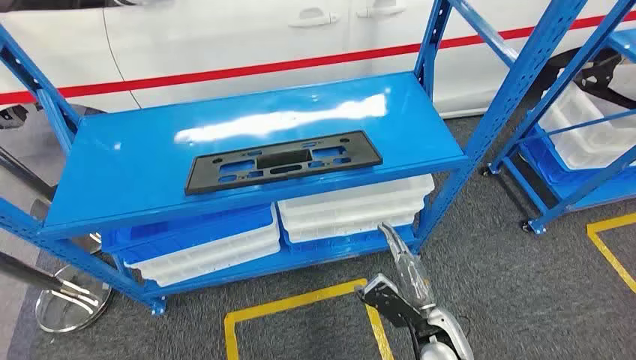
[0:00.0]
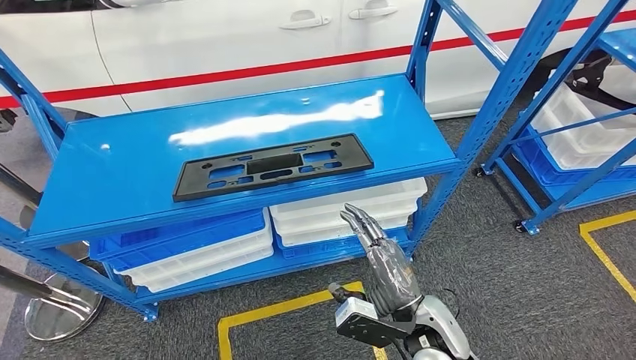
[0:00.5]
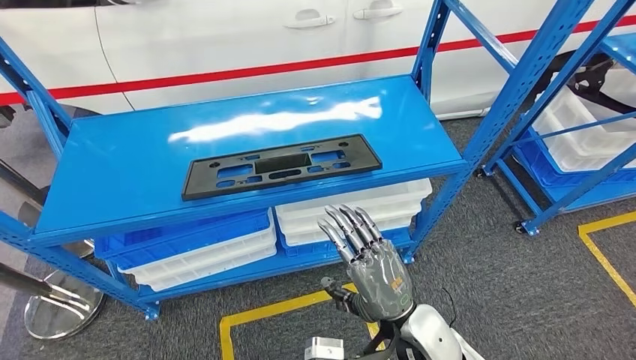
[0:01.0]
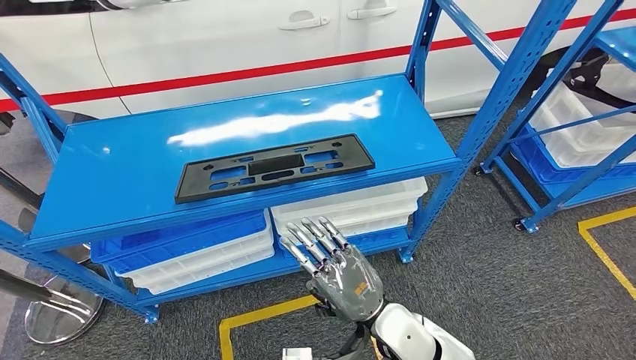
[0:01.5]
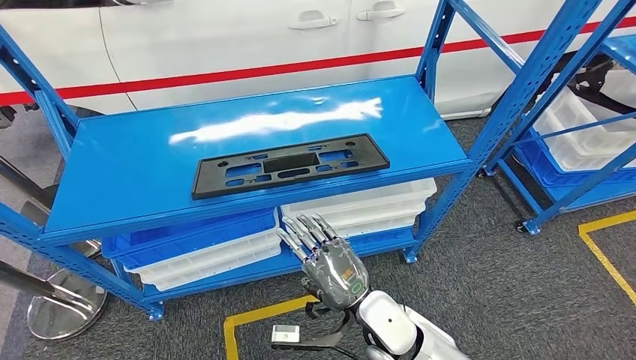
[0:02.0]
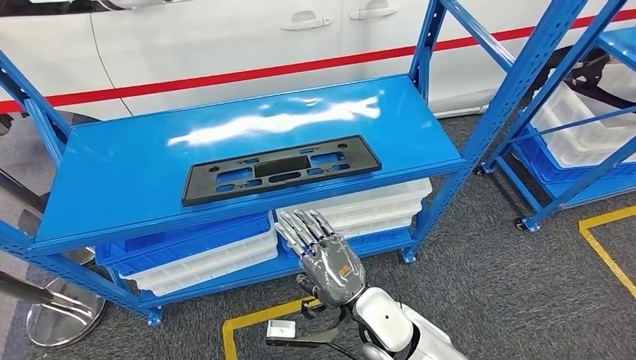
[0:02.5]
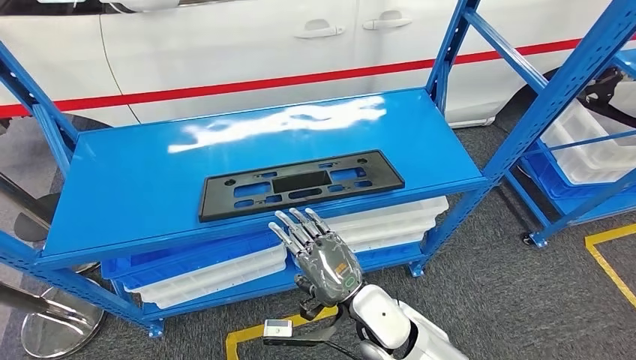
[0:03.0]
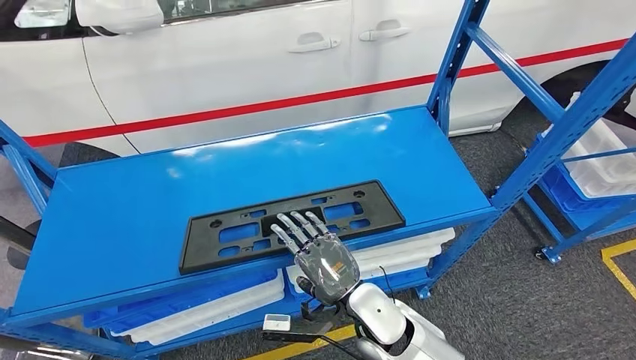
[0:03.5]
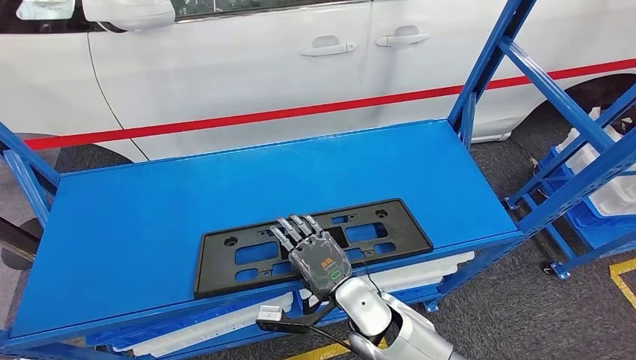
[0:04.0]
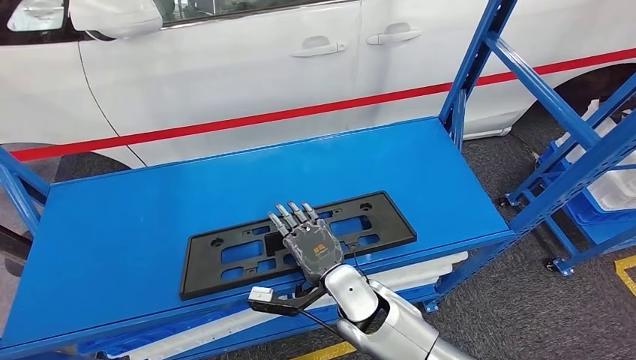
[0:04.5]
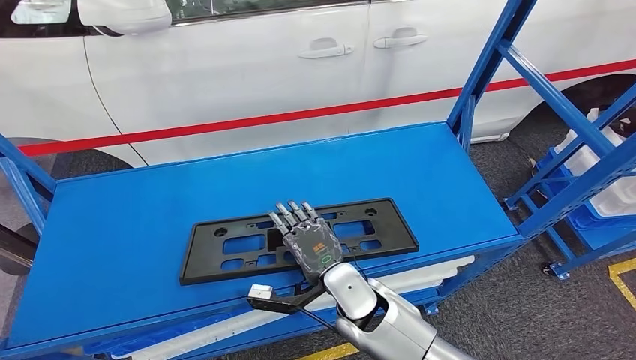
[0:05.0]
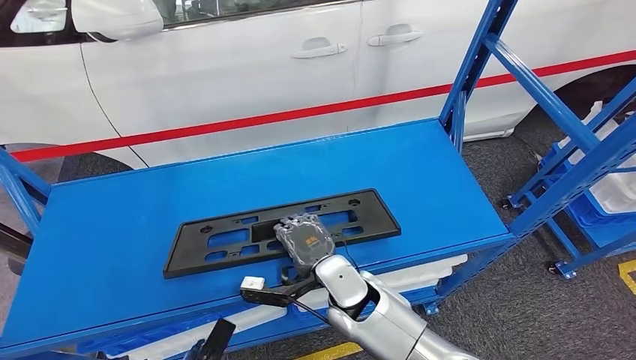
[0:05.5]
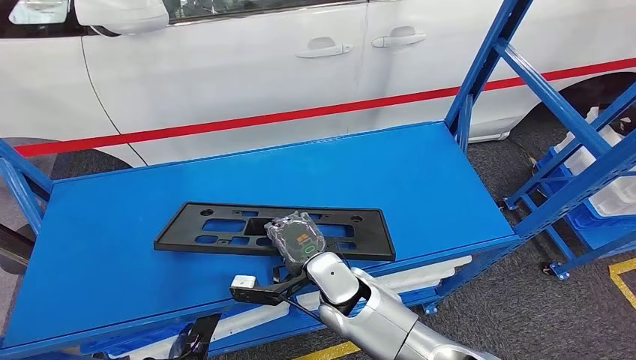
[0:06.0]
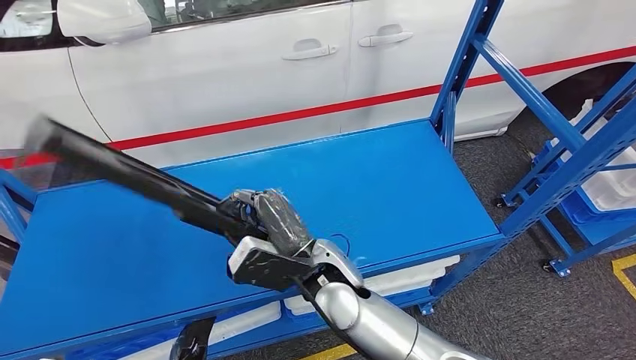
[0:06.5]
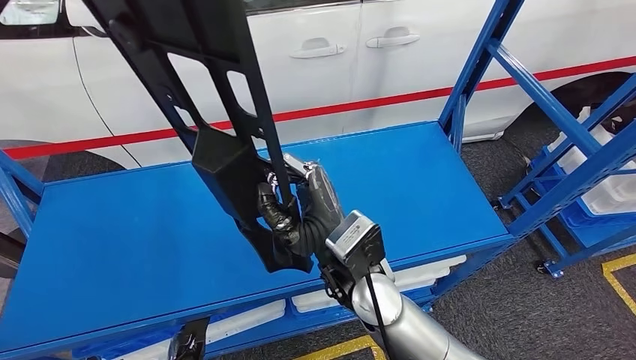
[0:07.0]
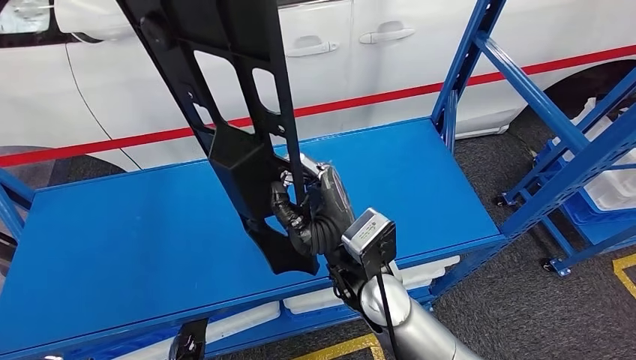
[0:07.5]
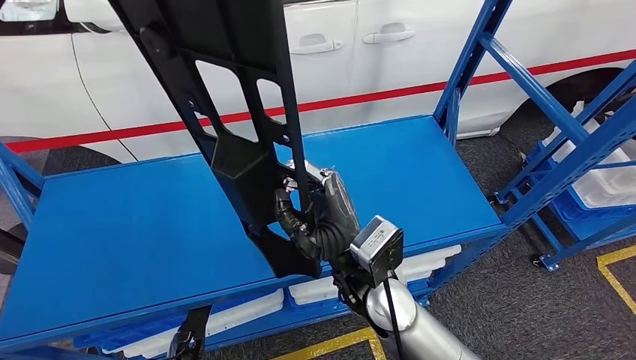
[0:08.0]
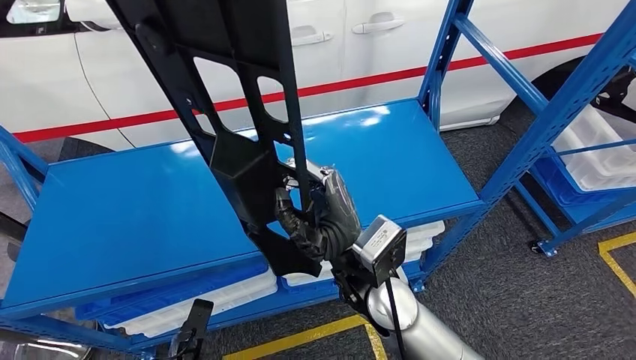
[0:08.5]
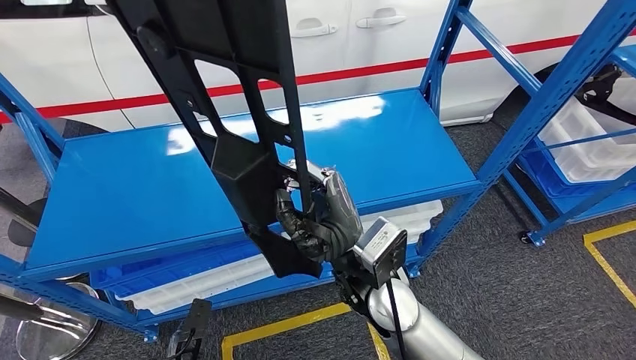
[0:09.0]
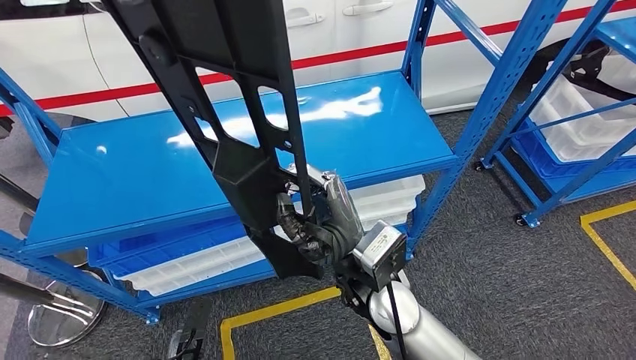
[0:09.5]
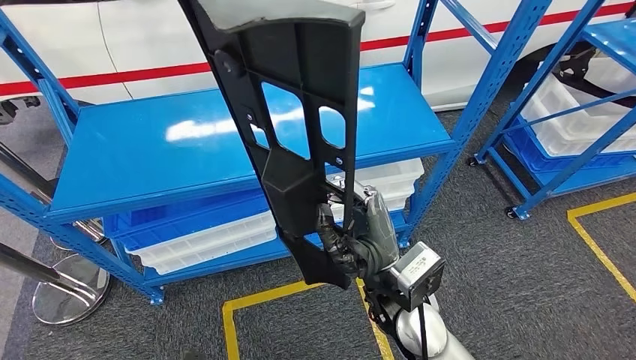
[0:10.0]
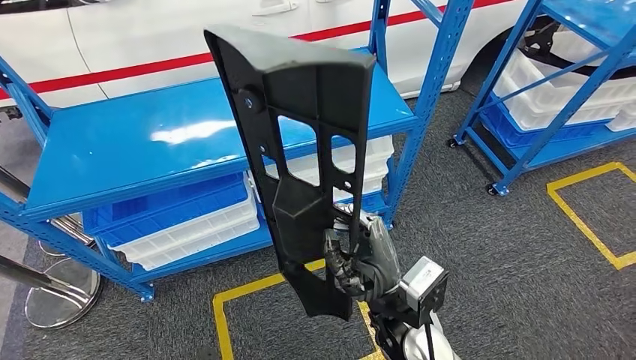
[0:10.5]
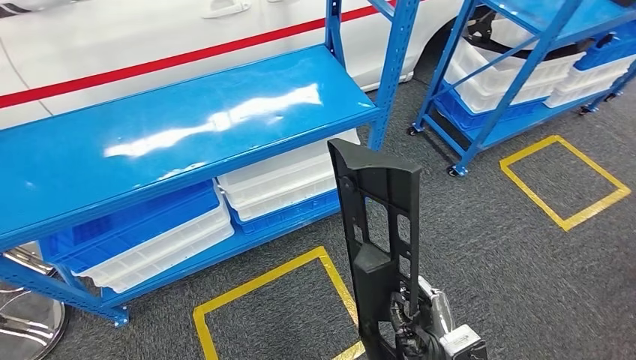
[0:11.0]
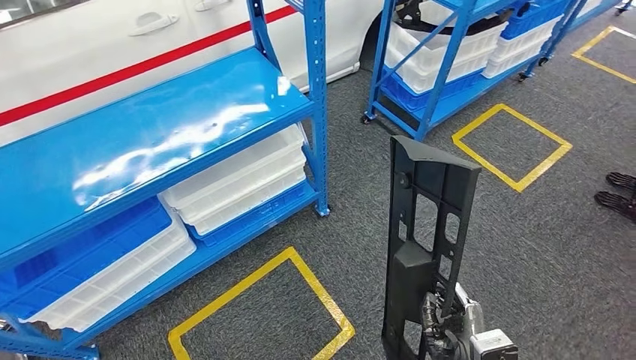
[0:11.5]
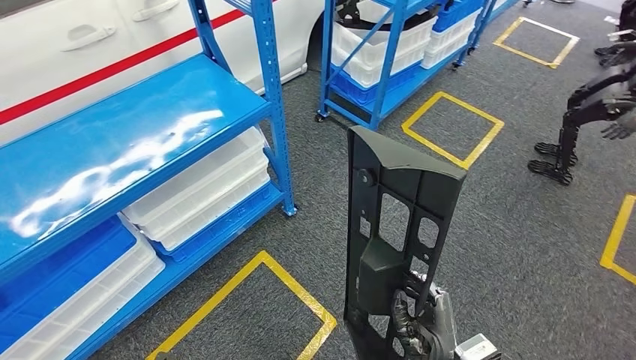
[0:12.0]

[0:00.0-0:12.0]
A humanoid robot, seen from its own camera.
Step, 0:00.0 to 0:07.0: Pick up the large material from the shelf.

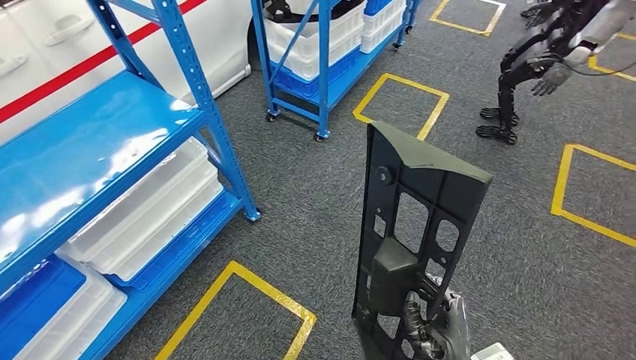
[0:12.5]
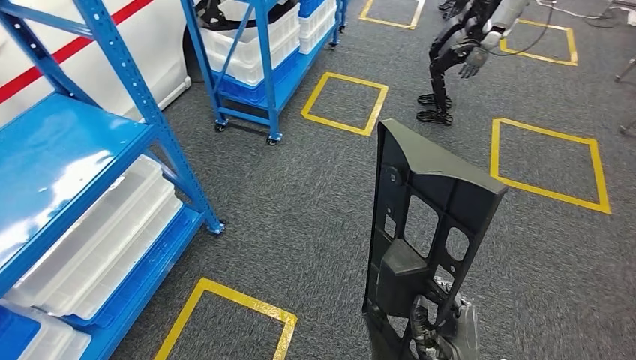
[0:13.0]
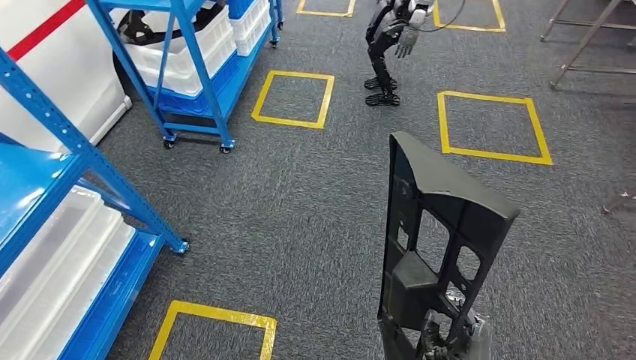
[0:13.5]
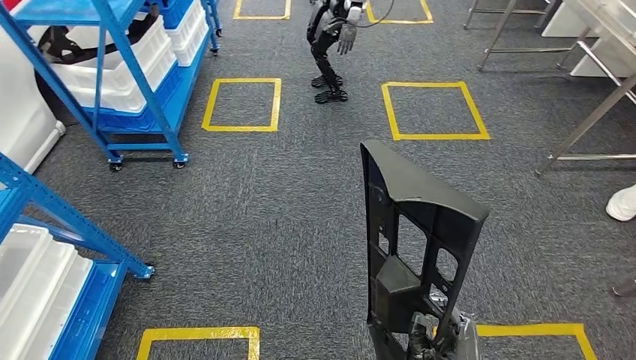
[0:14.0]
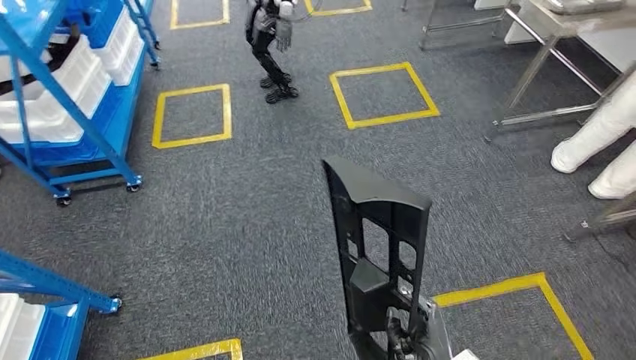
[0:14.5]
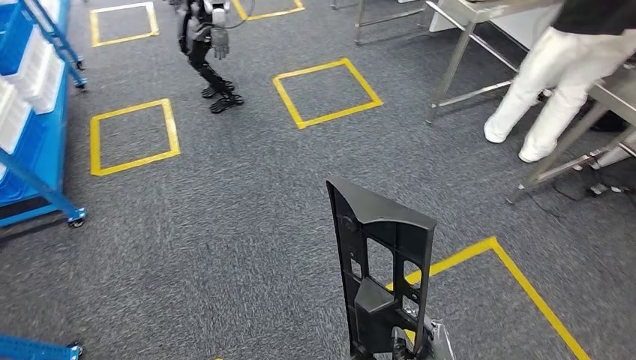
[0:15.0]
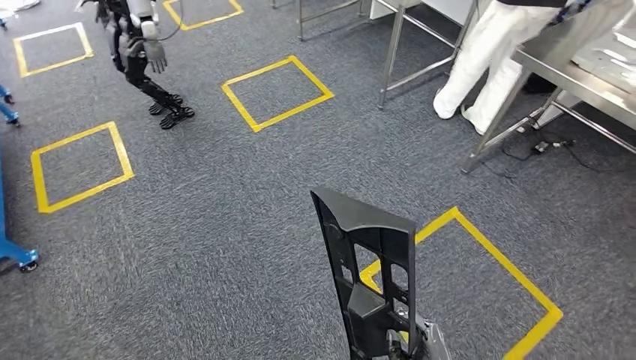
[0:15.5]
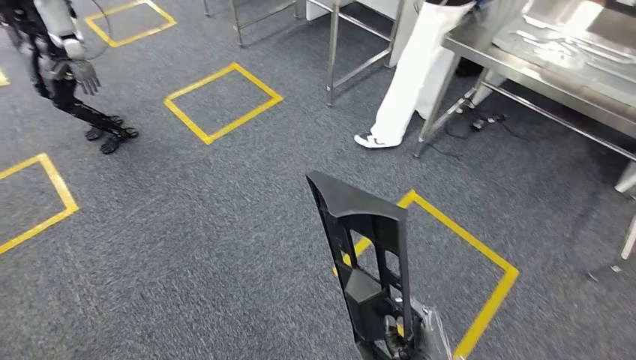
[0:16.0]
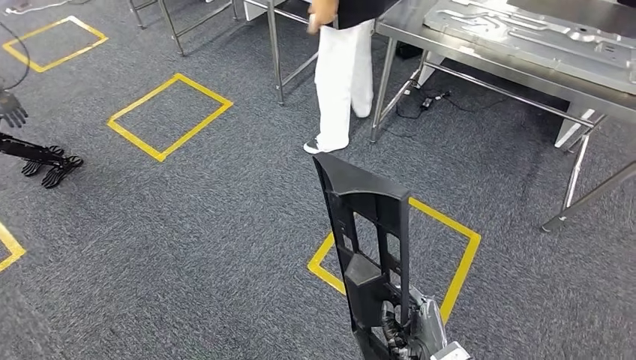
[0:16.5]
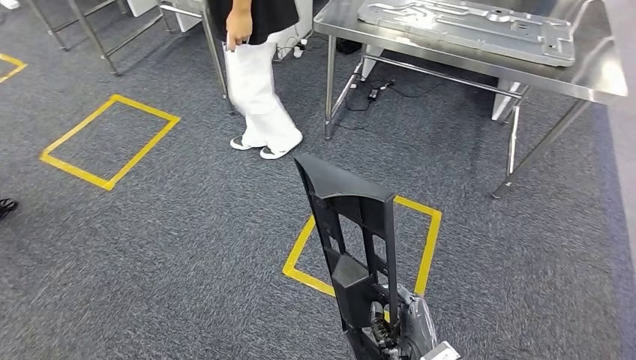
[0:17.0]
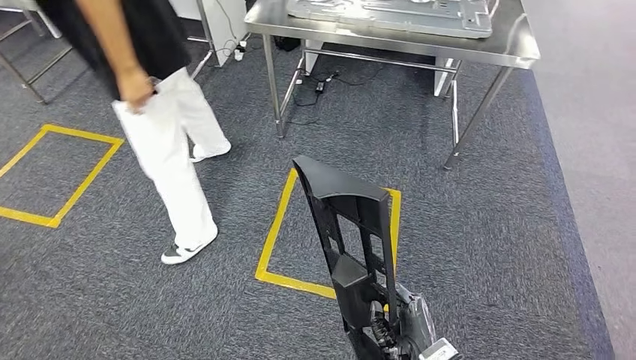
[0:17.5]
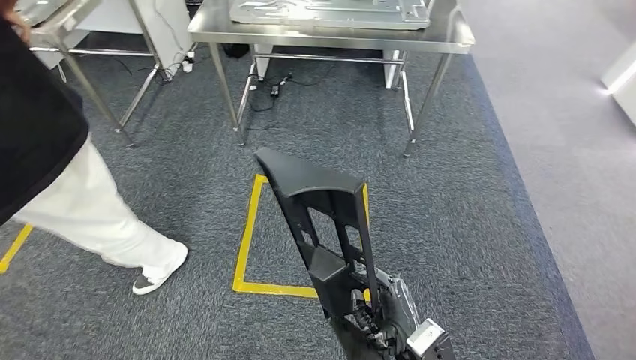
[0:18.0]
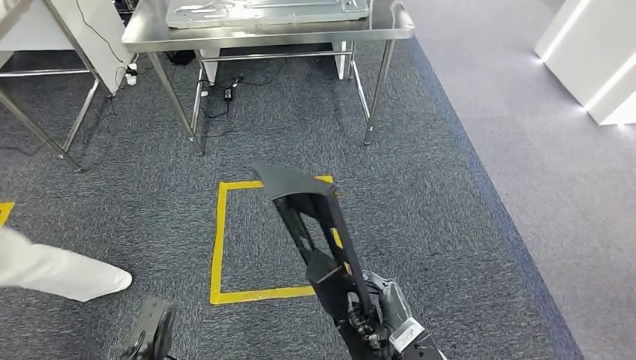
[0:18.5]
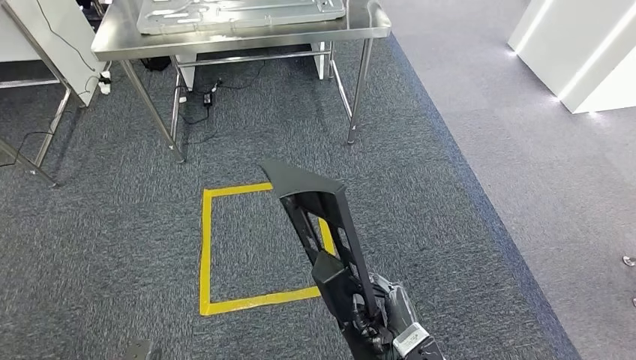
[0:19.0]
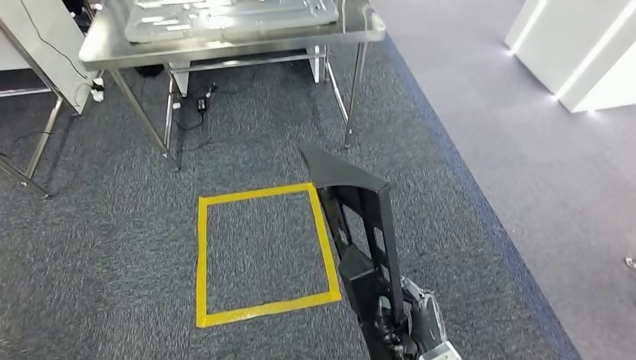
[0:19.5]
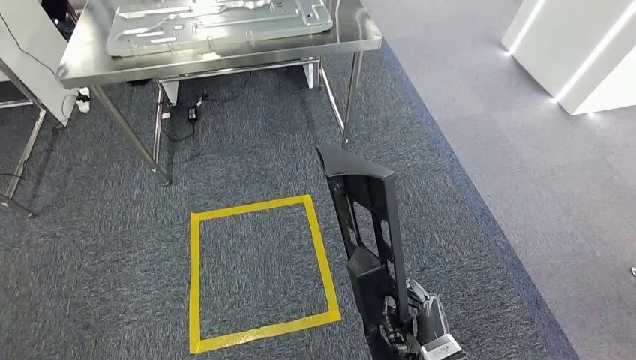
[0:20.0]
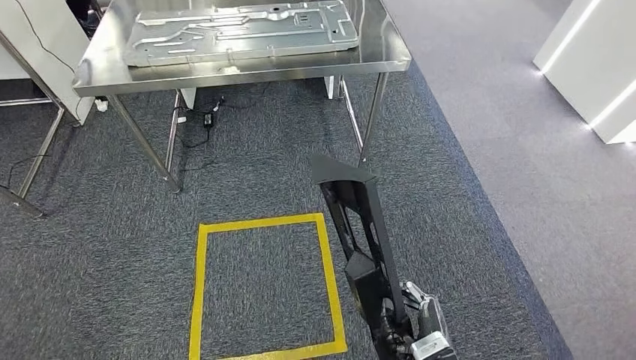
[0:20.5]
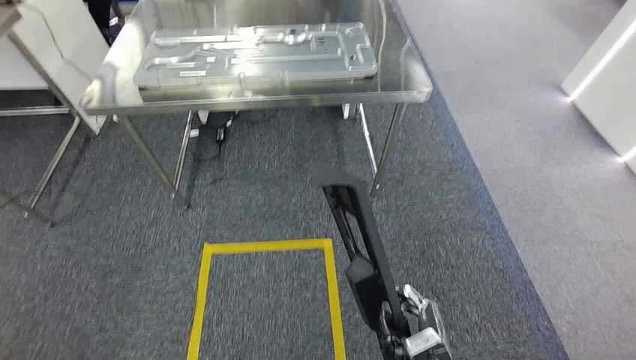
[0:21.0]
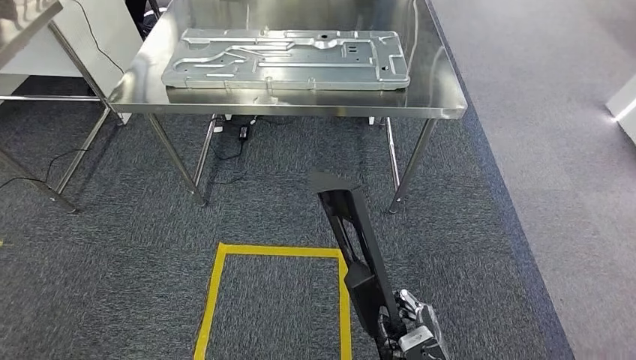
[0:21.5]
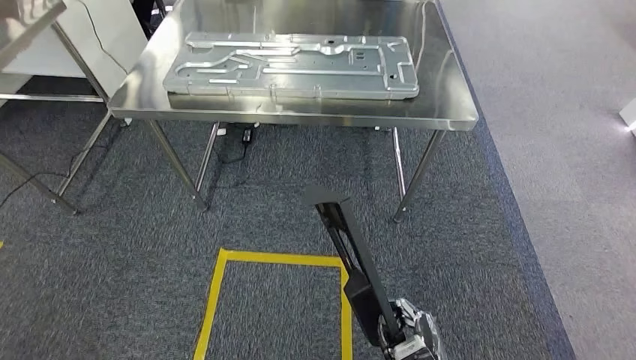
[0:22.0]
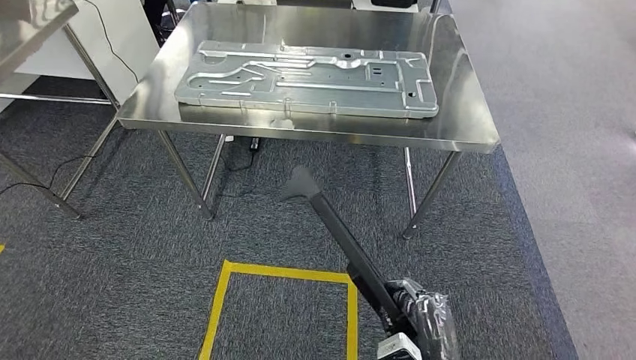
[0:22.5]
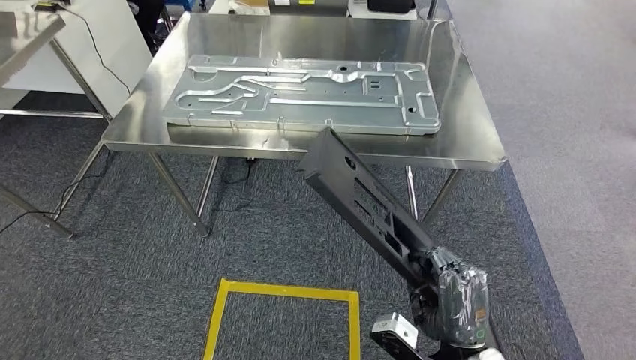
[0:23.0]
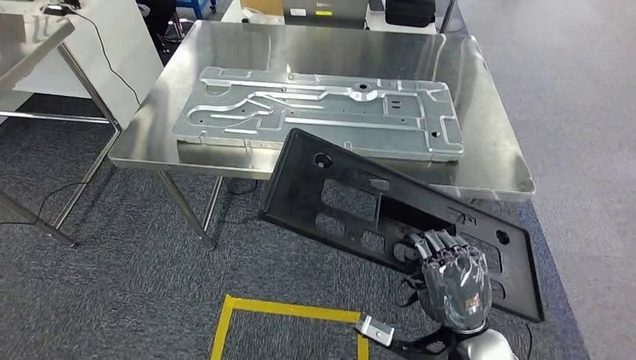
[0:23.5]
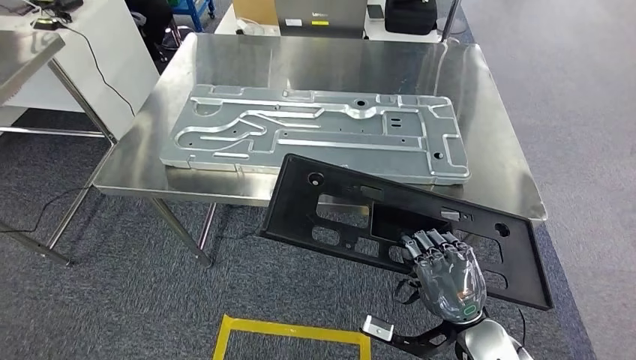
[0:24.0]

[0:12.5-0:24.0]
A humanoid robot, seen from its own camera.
Step, 0:12.5 to 0:23.5: Move the large material to the workbench.
